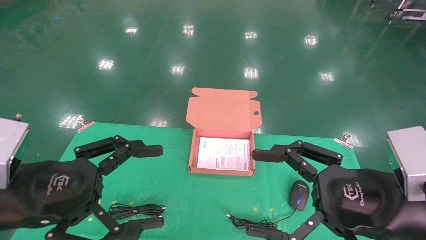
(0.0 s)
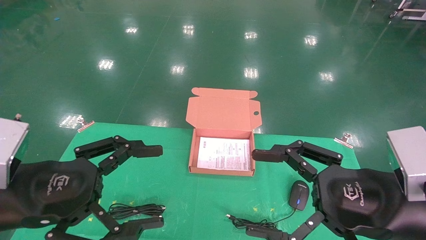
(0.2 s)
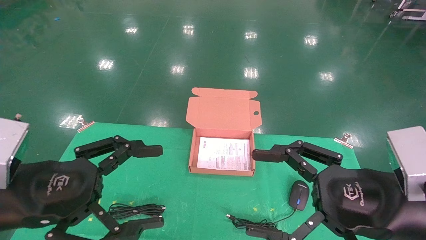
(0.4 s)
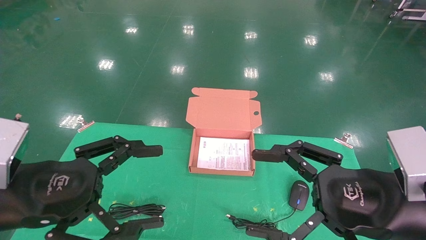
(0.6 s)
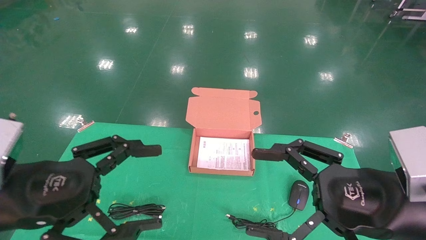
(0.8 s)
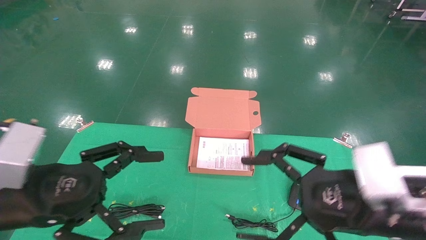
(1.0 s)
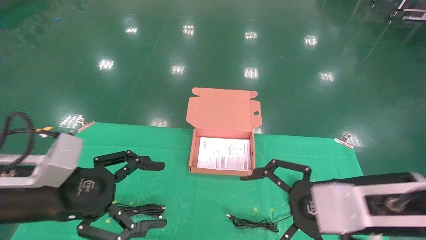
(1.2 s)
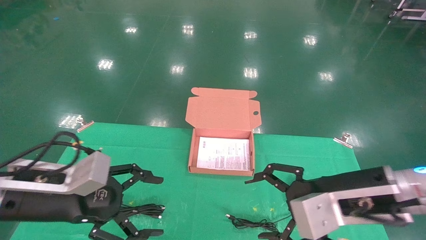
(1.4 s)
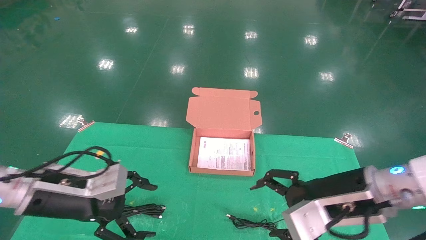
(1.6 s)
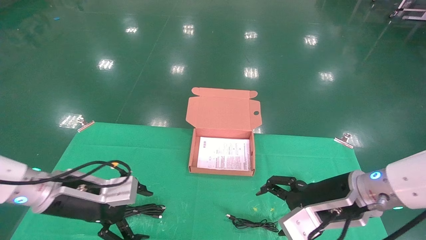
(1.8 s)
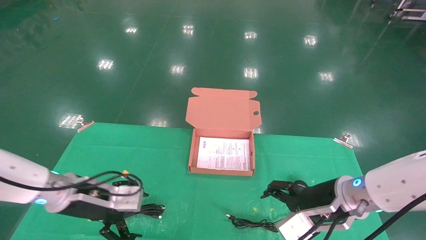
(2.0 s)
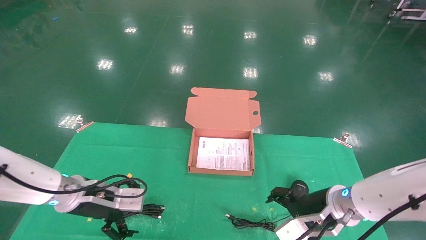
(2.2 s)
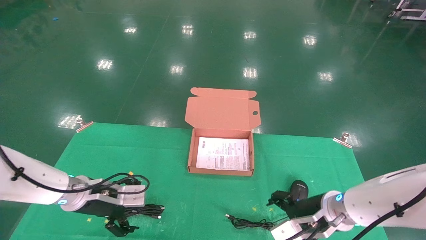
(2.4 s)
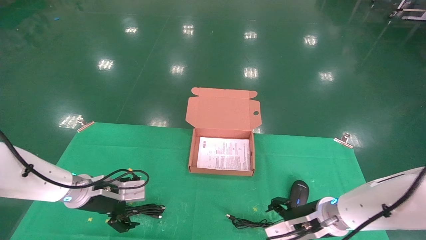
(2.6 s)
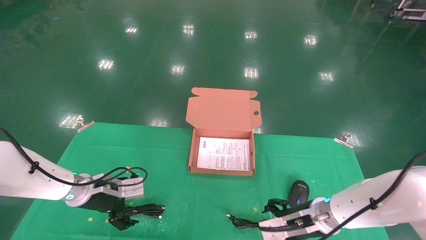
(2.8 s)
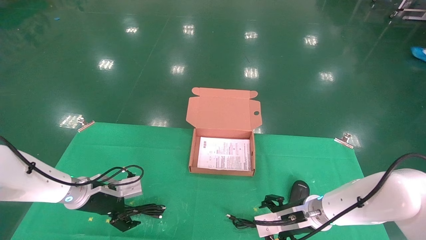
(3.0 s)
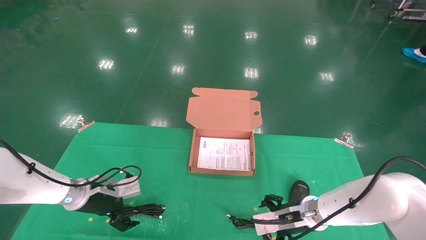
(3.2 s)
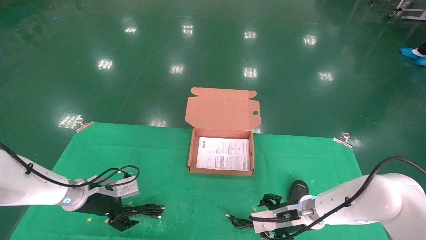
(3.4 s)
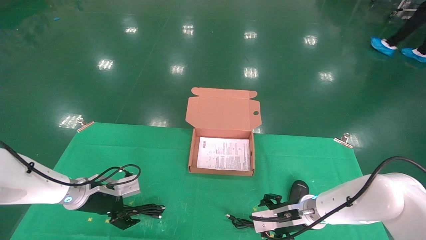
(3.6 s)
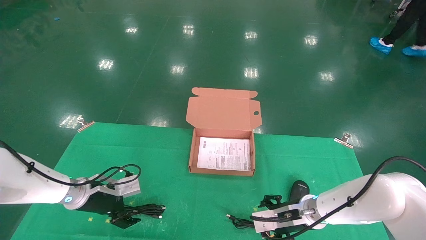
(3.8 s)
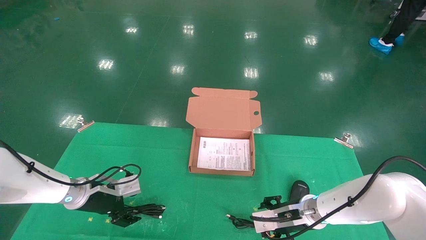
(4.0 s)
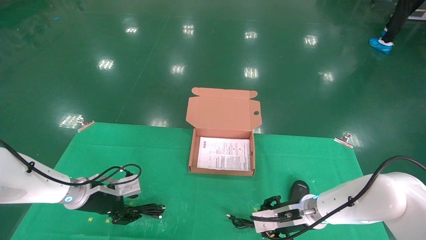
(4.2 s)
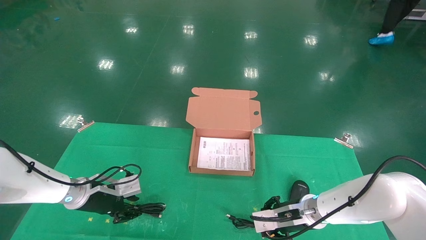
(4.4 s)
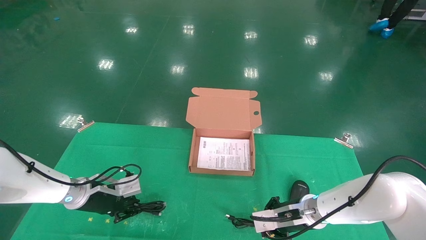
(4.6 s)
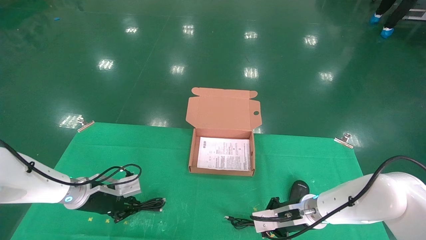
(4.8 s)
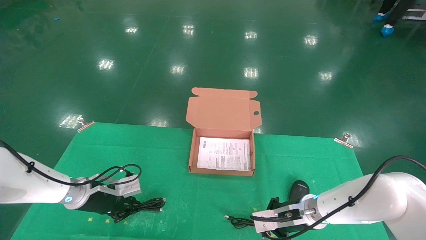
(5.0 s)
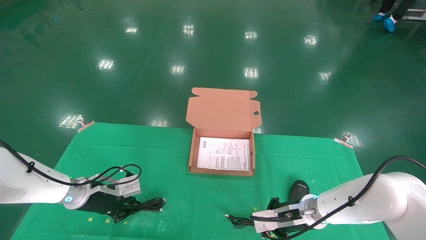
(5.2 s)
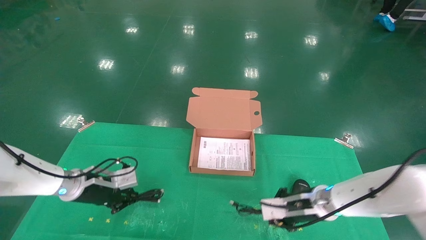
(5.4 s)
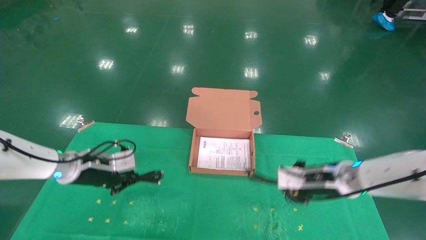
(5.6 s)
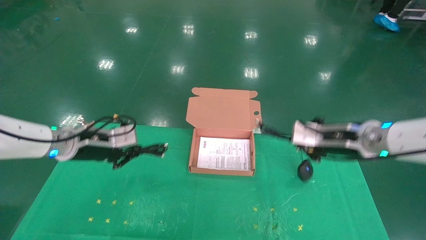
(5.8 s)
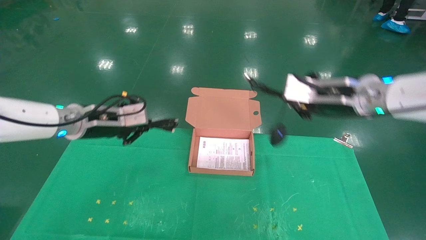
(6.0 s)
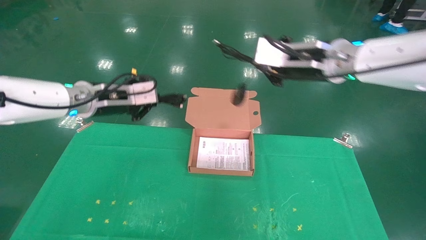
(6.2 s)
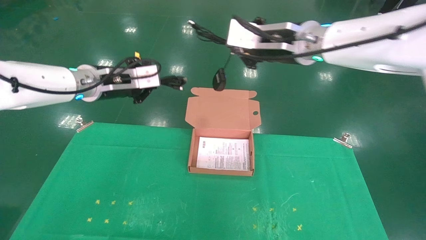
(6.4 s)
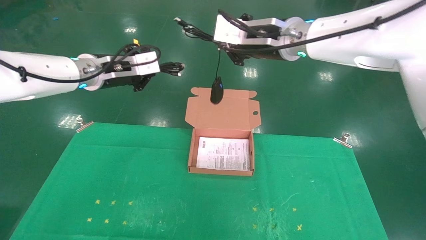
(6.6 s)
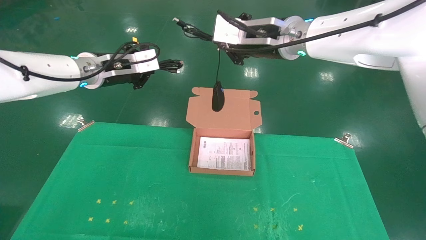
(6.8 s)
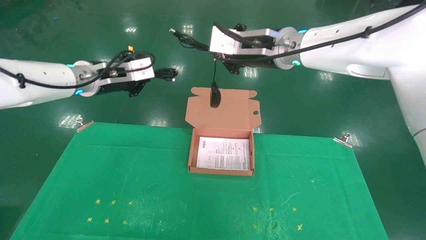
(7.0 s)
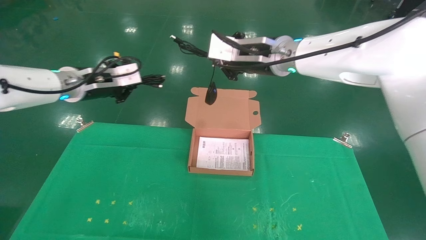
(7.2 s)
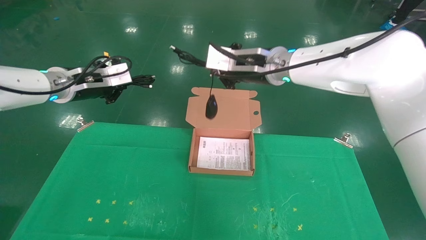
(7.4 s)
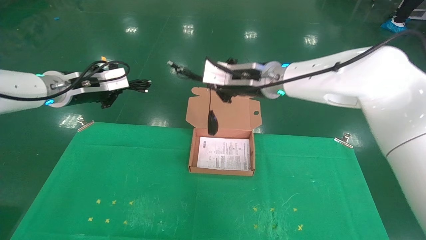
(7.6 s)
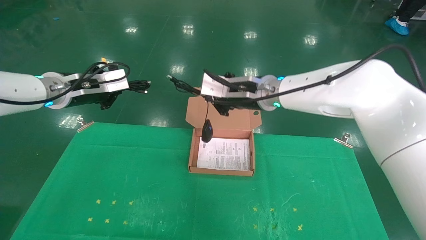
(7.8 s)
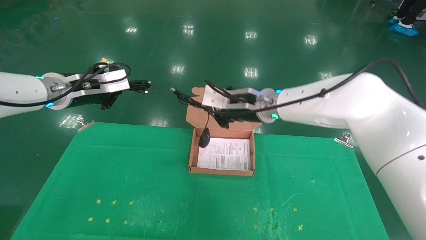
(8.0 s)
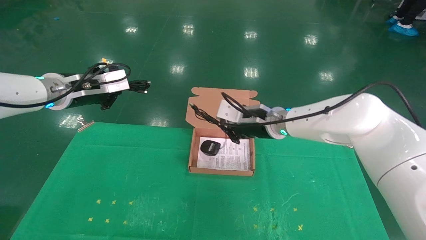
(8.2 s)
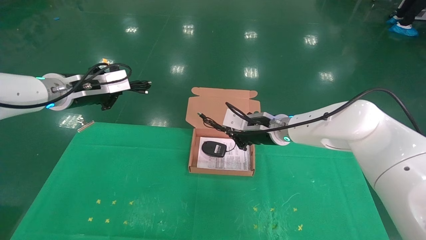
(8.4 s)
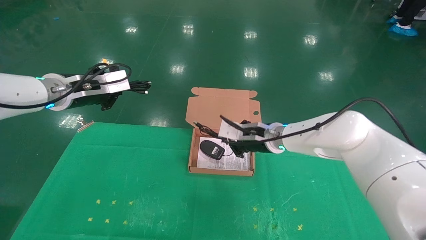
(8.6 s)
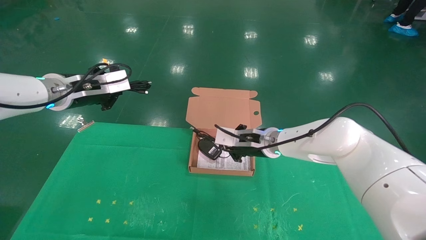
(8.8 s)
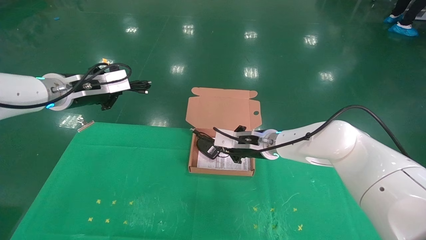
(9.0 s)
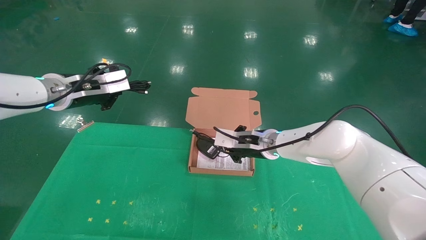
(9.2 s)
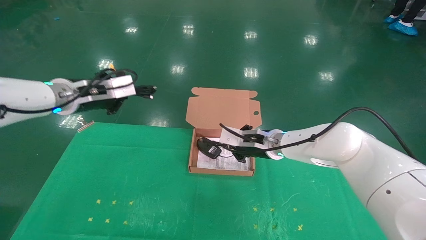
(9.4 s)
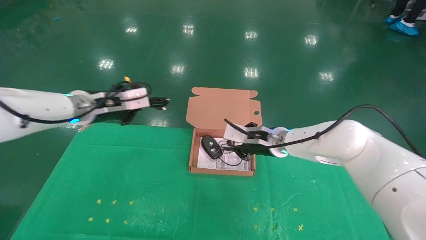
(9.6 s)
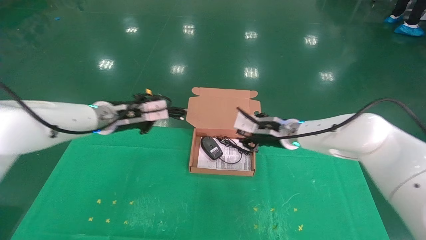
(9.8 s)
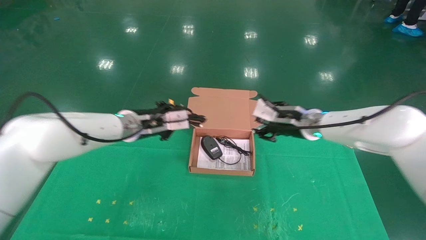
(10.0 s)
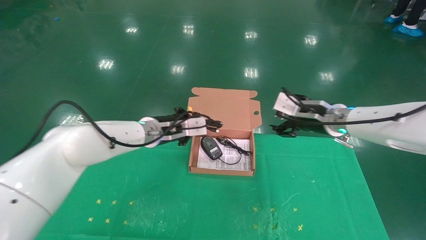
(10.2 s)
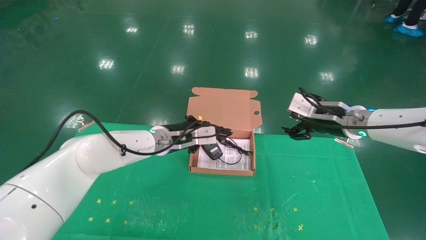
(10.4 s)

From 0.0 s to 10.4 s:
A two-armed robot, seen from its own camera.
Task of the whole recording: grasp data cable left put into box grasp mouse right put into box.
Step, from 1.0 s to 5.0 s: Grab and pick up both the mouse and power cord from the accessory packaging area at the same time.
From 0.0 s to 1.4 s: Both grippers travel together forward, approximately 5 cm.
From 1.4 s to 3.0 s: The right gripper shifts some 20 cm downward and forward; the left gripper moves forward and downward, approximately 20 cm.
From 3.0 s to 4.4 s: The right gripper closes its fingers, while the left gripper closes.
From 4.4 s to 6.0 s: Both grippers move upward, some 20 cm. The left gripper closes its fingers; the right gripper closes its fingers.
From 6.0 s to 7.4 s: The left gripper goes roughly 5 cm upward; the right gripper shifts approximately 15 cm to the left.
From 7.4 s to 9.0 s: The right gripper heads downward, covering about 20 cm.
From 9.0 s to 10.4 s: The left gripper shifts about 20 cm to the right and downward, while the right gripper travels to the right and upward by about 20 cm, and opens.

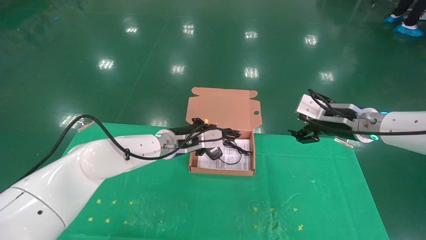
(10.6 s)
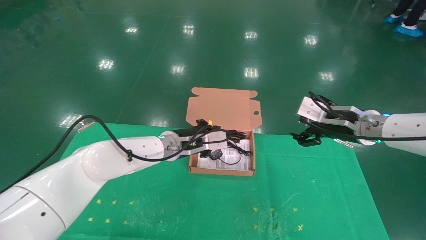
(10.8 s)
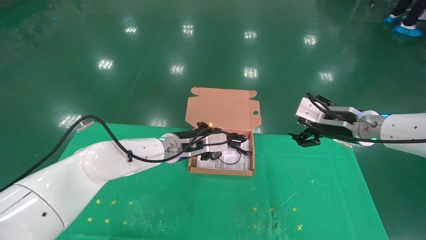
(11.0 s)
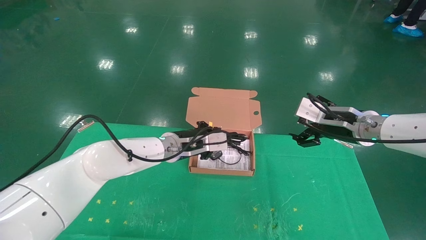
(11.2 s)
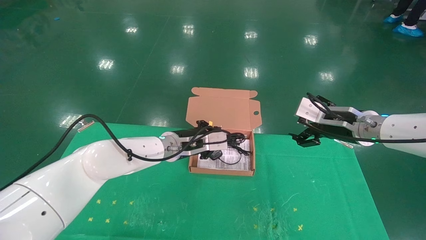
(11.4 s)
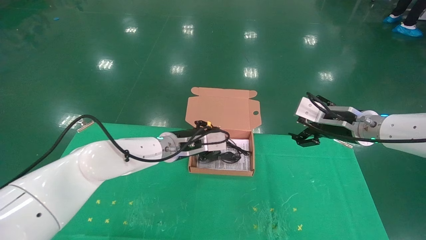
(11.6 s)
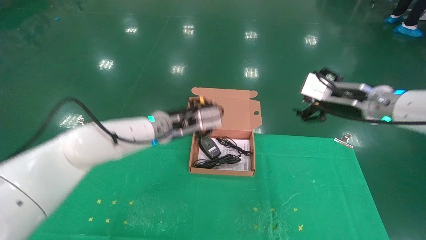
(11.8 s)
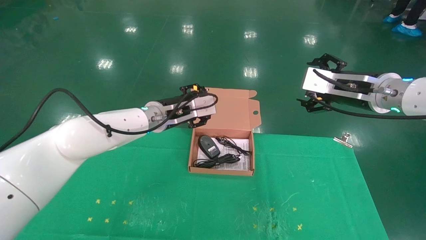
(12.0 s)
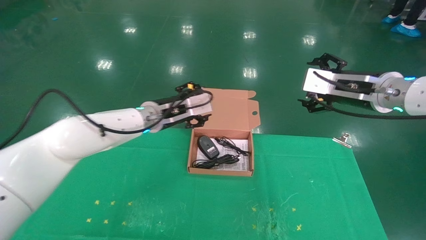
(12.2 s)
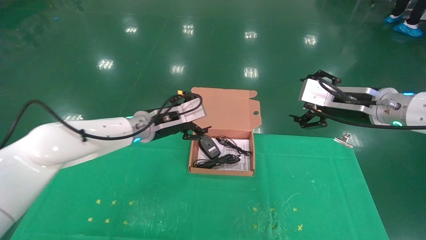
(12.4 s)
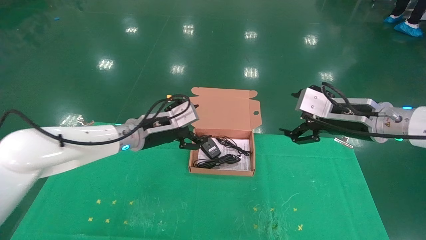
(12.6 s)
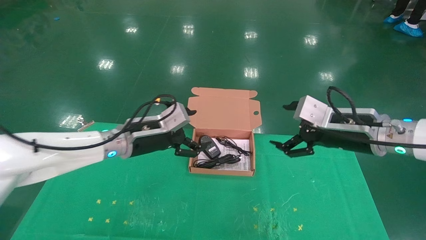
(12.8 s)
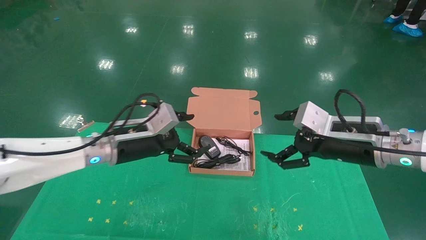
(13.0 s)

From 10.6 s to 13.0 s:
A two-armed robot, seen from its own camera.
Task of the whole recording: grasp data cable left put into box grasp mouse right put into box.
From 10.6 s to 11.8 s: The right gripper shifts by some 5 cm.
From 11.8 s to 13.0 s: The left gripper is displaced to the left and backward by some 10 cm, and opens its fingers. Meanwhile the right gripper travels backward and downward by some 10 cm.
